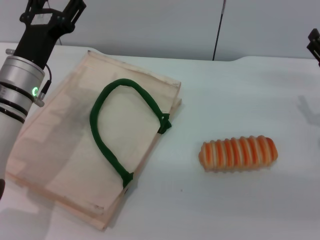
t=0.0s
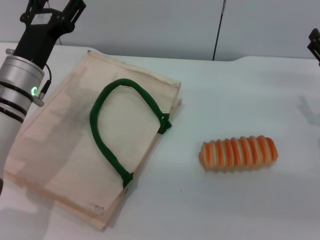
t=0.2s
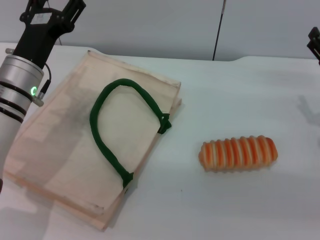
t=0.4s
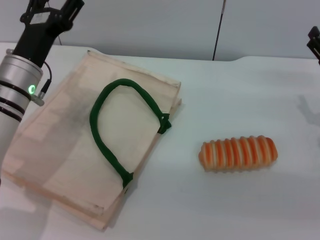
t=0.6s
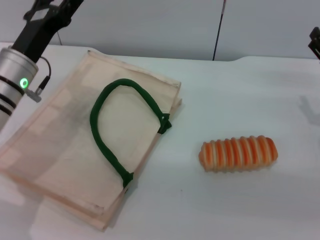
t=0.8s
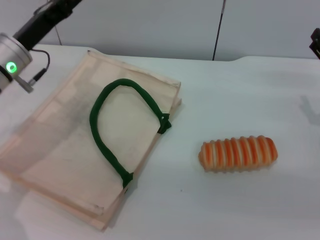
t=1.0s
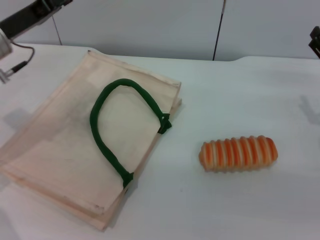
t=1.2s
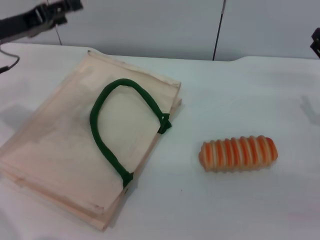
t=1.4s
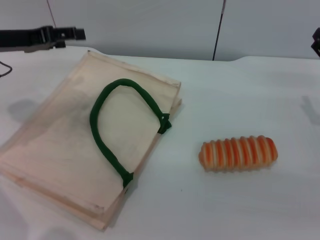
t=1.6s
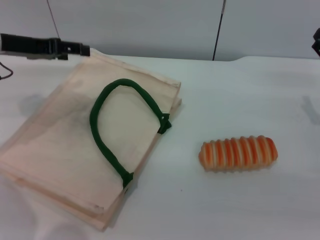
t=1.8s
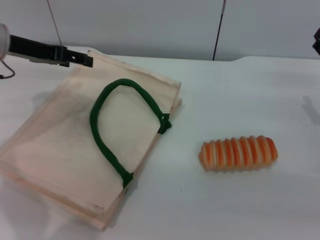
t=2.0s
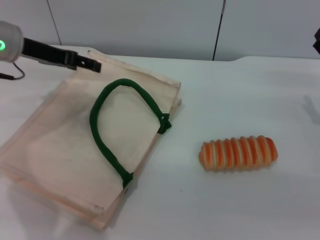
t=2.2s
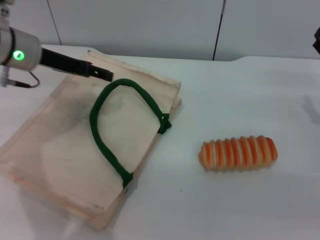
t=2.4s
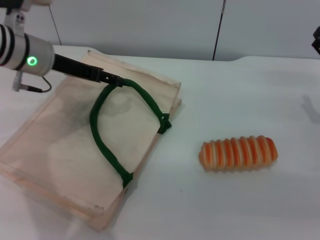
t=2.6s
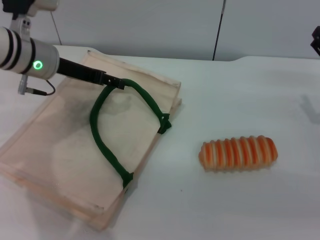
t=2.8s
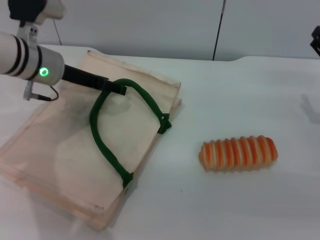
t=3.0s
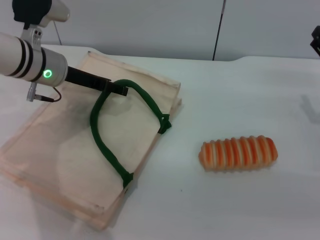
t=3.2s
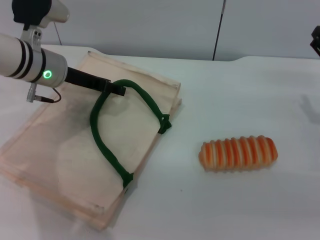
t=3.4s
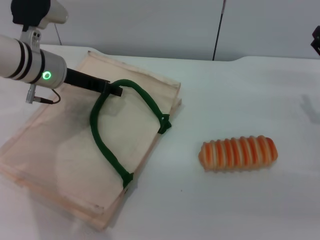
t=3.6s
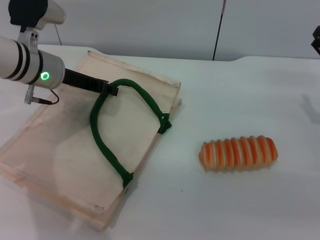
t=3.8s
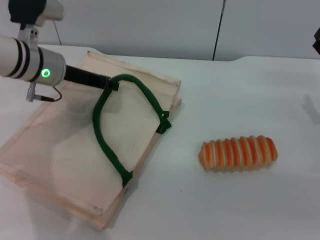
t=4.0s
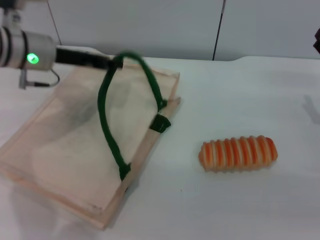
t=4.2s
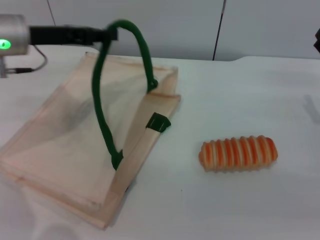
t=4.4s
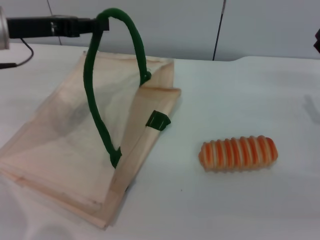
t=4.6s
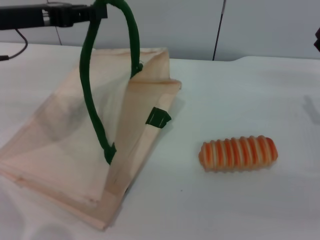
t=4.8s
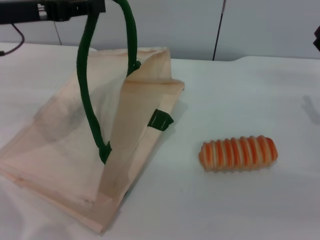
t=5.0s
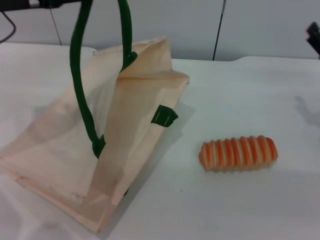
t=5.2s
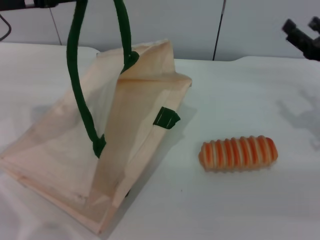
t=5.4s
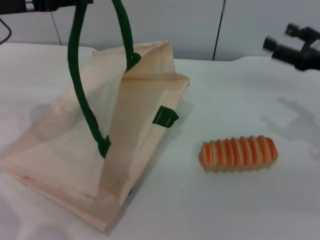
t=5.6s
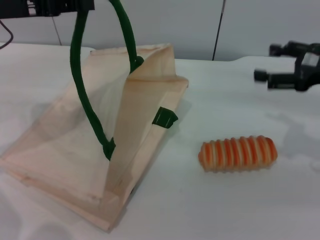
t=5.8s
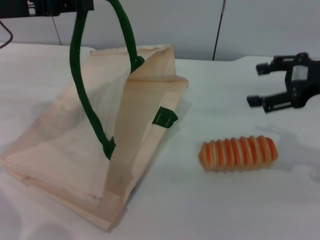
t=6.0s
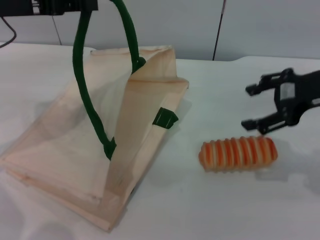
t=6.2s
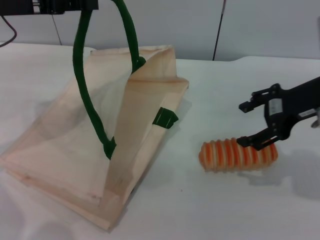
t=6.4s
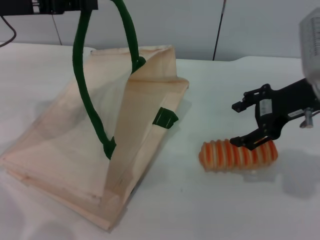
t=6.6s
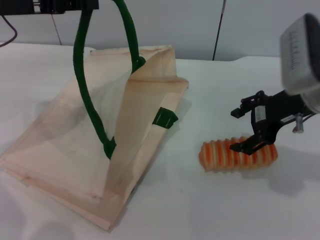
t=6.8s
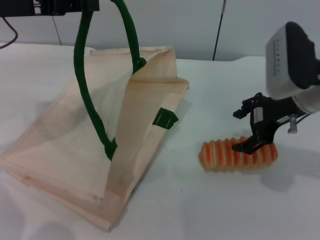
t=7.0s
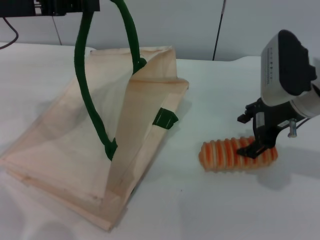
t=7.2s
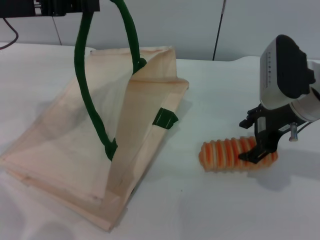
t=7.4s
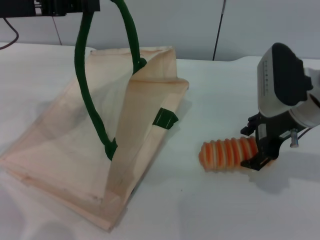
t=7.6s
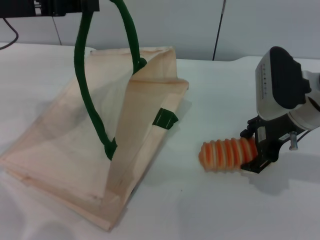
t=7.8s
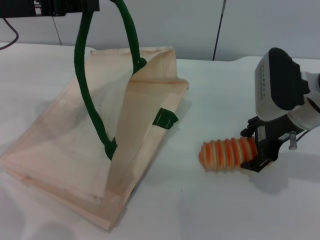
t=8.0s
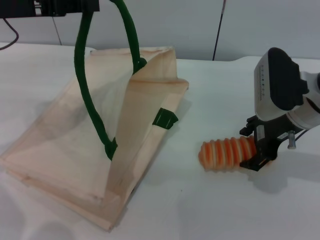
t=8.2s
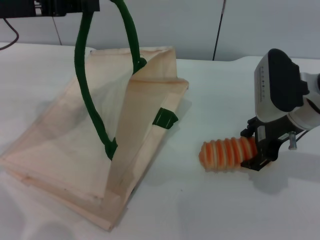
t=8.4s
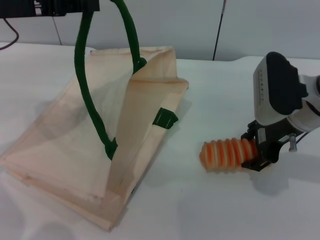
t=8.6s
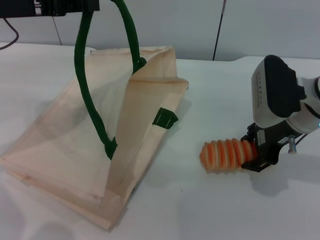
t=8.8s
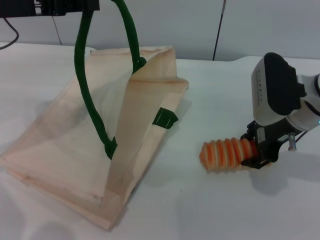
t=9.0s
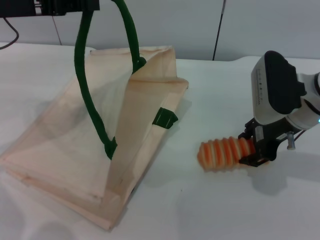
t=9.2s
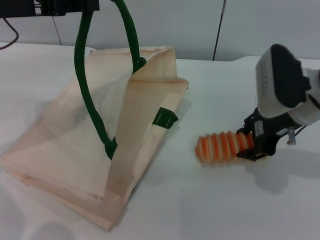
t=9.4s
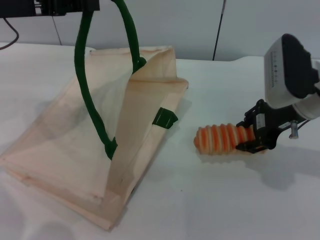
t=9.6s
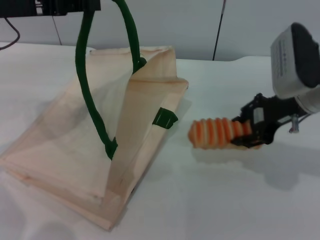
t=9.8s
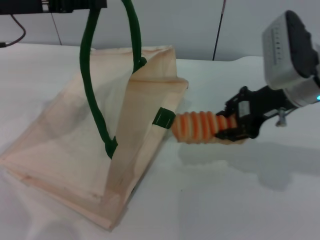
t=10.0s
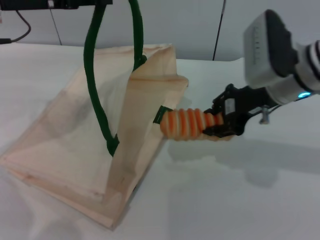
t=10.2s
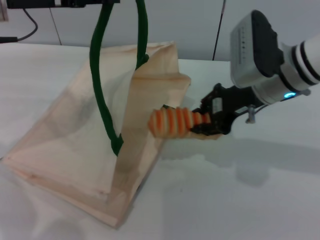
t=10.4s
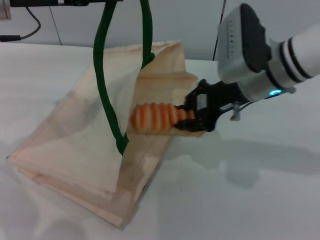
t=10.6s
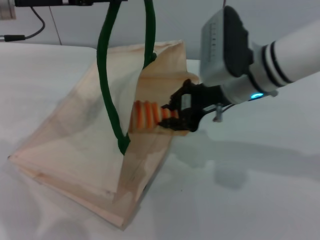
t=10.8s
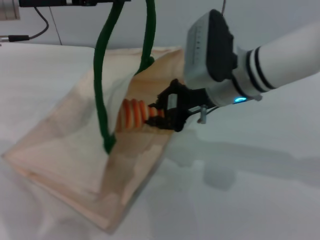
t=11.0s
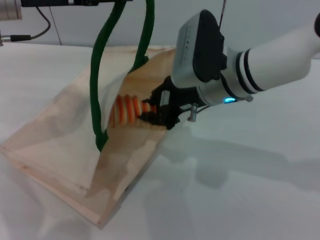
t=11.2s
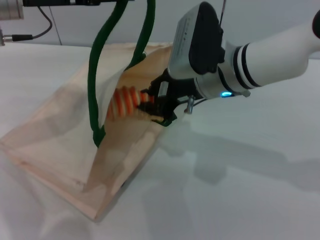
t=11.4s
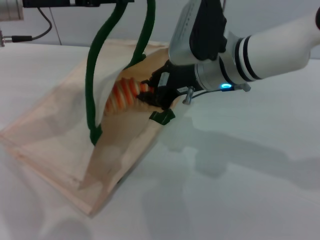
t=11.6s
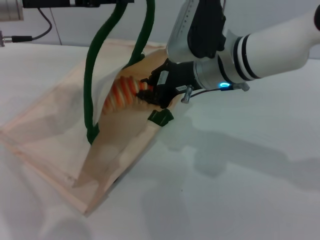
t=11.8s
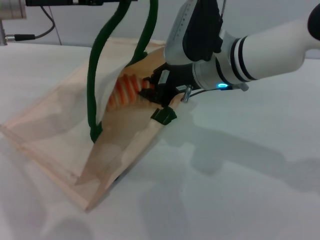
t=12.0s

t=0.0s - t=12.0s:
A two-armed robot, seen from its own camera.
Task of the whole recording: pick up the bread from the table and place it in the white handbag.
Step, t=0.0s - t=4.8s: Lift the woven bag with the left gripper to open it.
Step, t=5.0s - t=9.8s: Pick up the bread with the right gripper.
t=0.0s - t=1.6s: The left gripper shifts approximately 10 cm to the left and upward.
t=1.6s - t=3.0s: The left gripper is displaced to the right by about 10 cm.
t=3.0s - t=4.4s: The left gripper moves about 5 cm, and closes its fingers.
t=4.4s - t=6.0s: The right gripper is displaced upward by roughly 10 cm; the left gripper ends up about 5 cm from where it was.
t=6.0s - t=7.6s: The right gripper moves to the left and downward, roughly 10 cm.
t=7.6s - t=9.0s: Both grippers stay put.
t=9.0s - t=10.4s: The right gripper ends up some 5 cm from where it was, and closes.
t=10.4s - t=12.0s: The right gripper goes approximately 10 cm to the left.

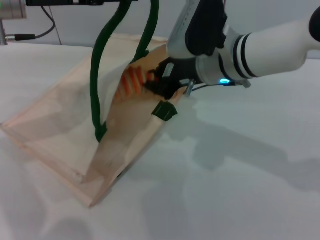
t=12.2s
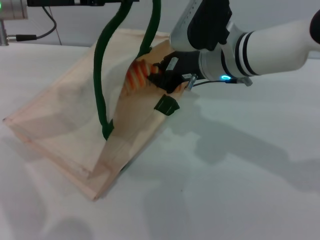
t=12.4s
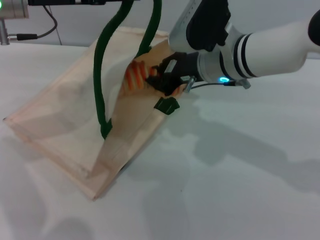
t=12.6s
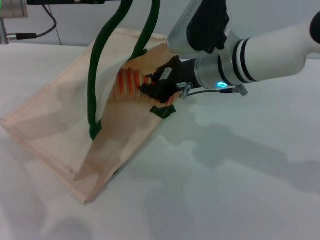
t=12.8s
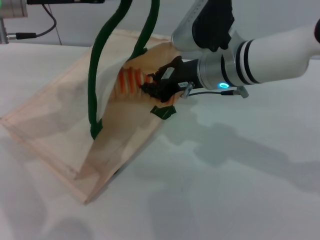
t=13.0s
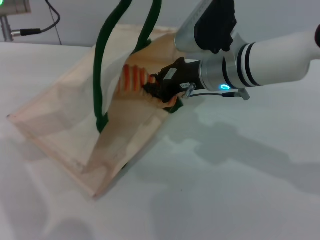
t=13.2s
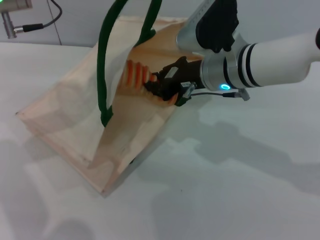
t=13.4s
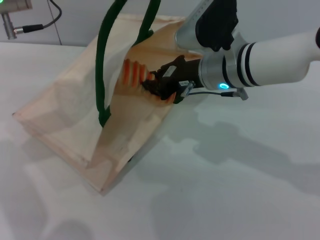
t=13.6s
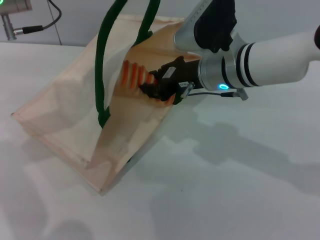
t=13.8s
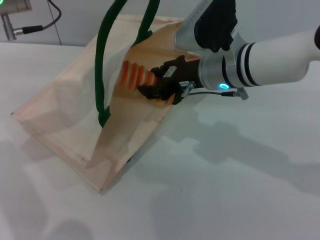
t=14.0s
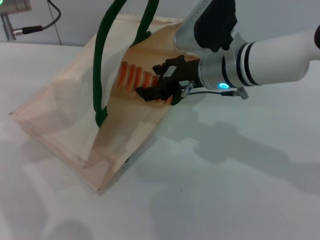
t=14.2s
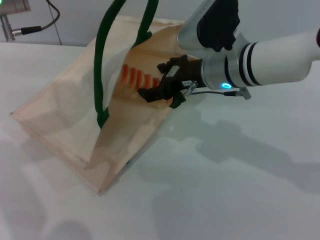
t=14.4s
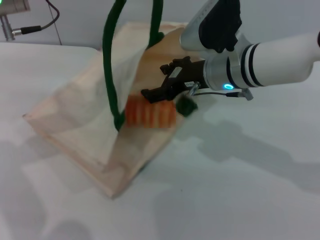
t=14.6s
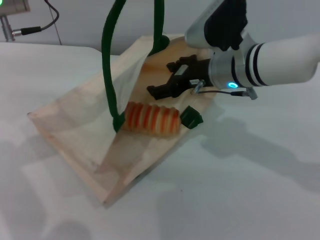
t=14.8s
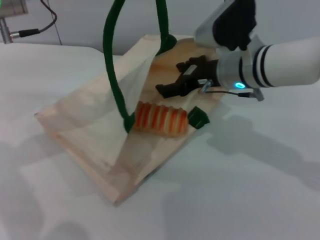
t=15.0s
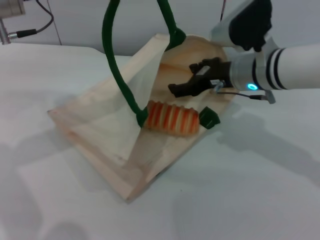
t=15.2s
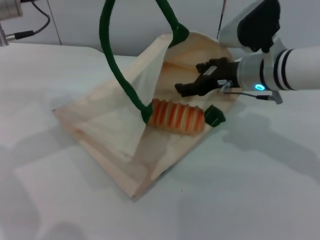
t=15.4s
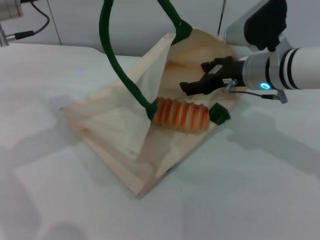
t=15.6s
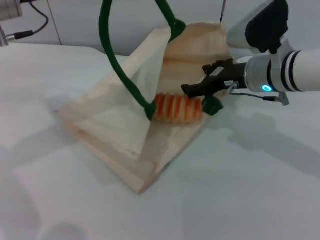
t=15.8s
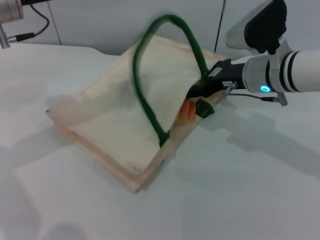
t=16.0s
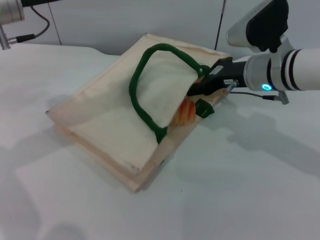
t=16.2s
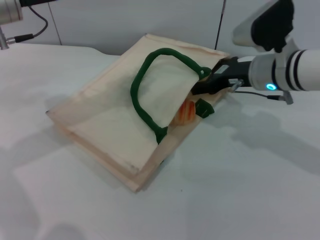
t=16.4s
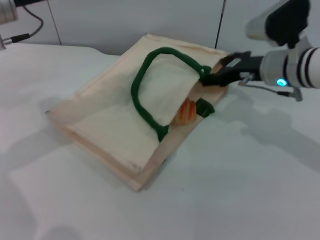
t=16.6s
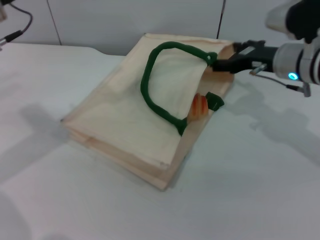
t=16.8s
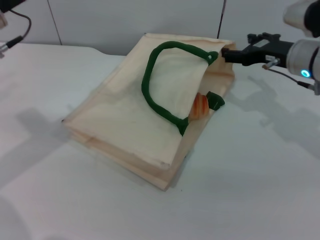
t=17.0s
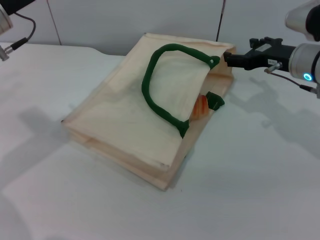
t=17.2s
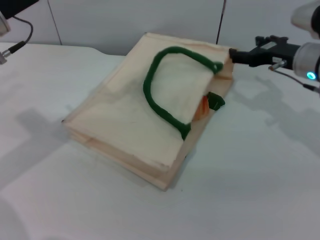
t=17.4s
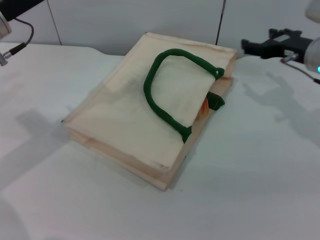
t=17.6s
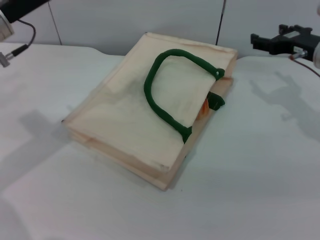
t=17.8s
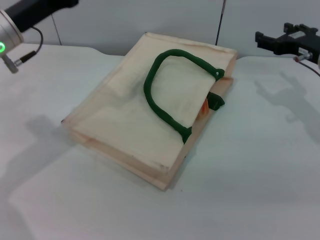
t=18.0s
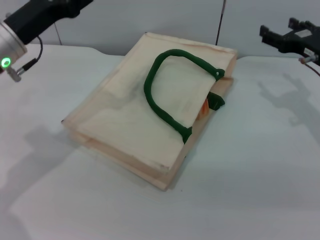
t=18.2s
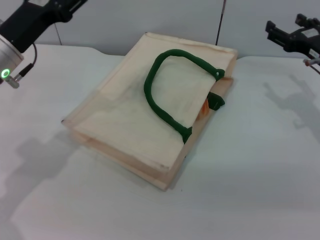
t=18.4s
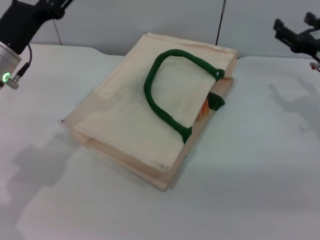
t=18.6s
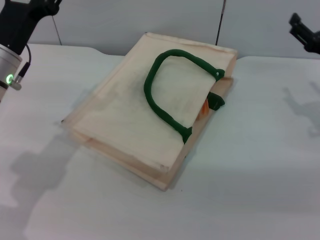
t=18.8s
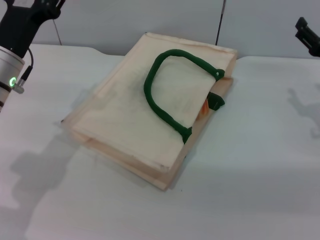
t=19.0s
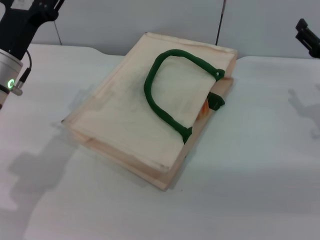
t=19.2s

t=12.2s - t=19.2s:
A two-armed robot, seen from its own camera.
Task of the whole recording: pick up the bread from the table and place it in the white handbag.
Step, t=12.2s - t=15.6s: Place the bread into the woven bag with the right gripper.
Step, t=16.0s - t=17.4s: Lower the woven bag with the left gripper to close it.
t=12.2s - t=13.6s: The grippers stay close to where they were, moving slightly.
t=13.6s - t=15.0s: The right gripper opens its fingers.
t=15.0s - t=16.4s: The left gripper opens its fingers; the right gripper ends up about 5 cm from where it was.
t=16.4s - t=17.8s: The left gripper opens its fingers, while the right gripper moves to the right, about 10 cm.
t=17.8s - t=19.2s: The right gripper shifts about 5 cm backward. The left gripper moves downward, some 5 cm.

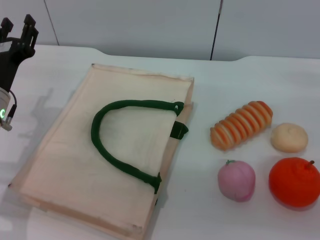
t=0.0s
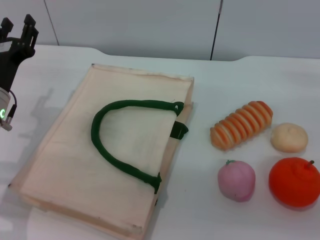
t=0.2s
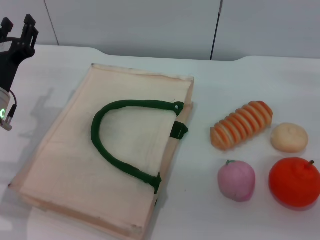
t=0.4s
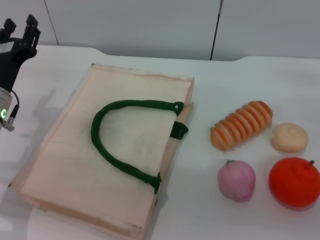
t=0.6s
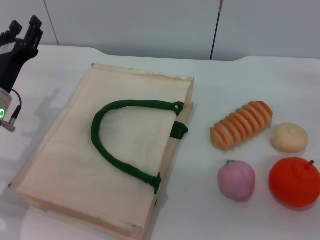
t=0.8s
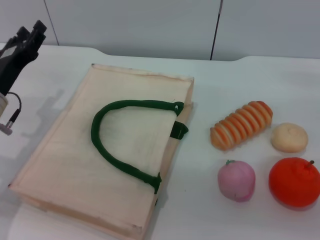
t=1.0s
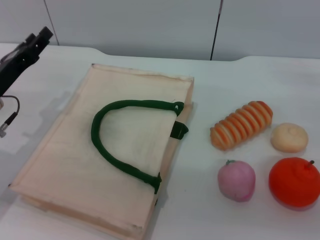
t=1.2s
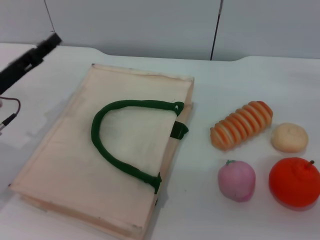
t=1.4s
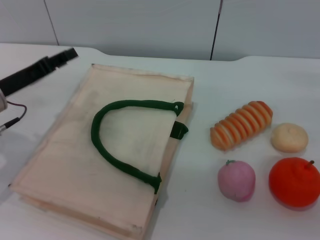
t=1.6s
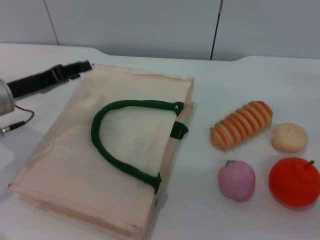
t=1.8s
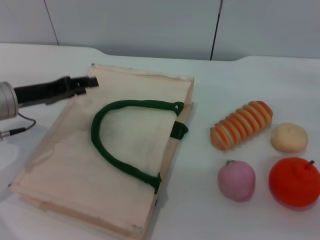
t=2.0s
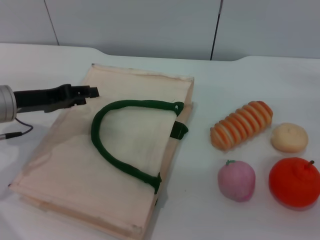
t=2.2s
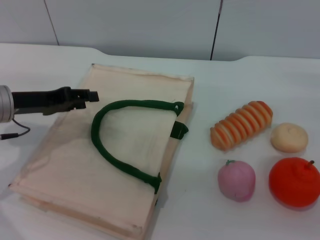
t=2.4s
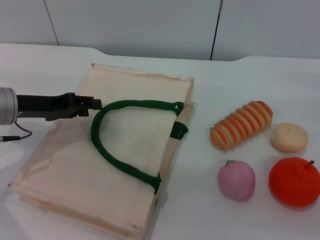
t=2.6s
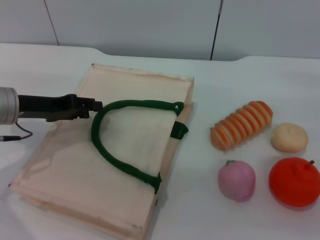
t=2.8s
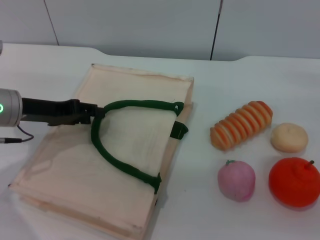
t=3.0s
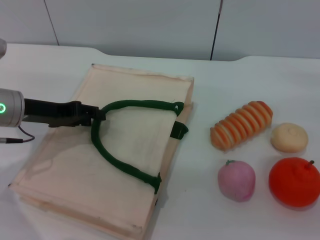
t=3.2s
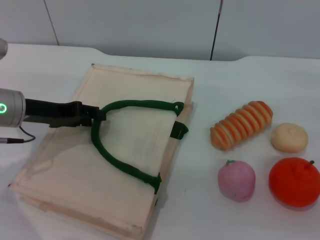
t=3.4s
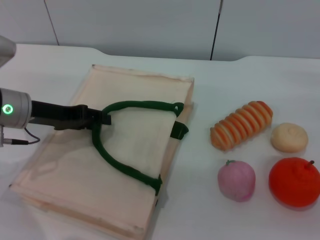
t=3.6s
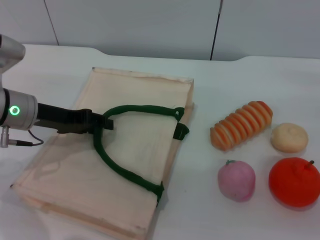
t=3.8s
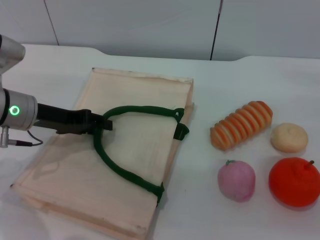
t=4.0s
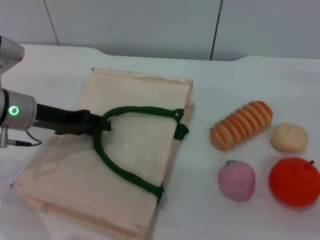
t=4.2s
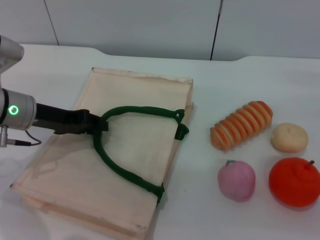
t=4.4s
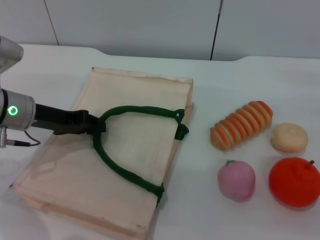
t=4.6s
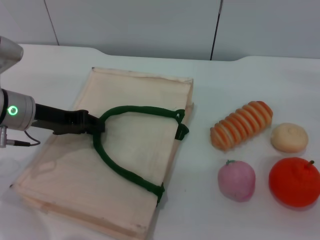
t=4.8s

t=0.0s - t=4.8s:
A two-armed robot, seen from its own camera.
Task of the whole recording: pick up the orange from the table and place it in the white handbag.
t=3.2s - t=4.8s: The left gripper closes its fingers.
